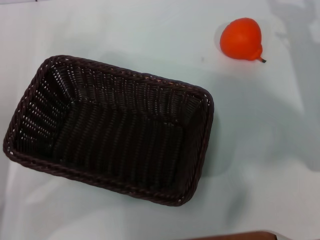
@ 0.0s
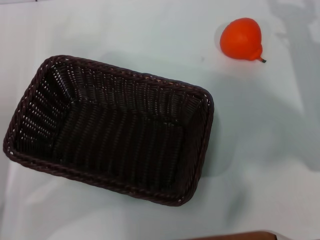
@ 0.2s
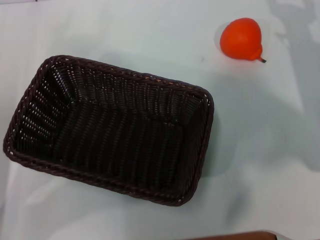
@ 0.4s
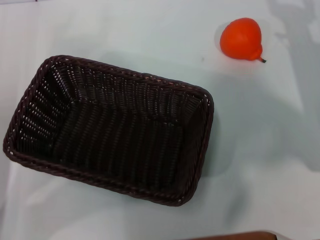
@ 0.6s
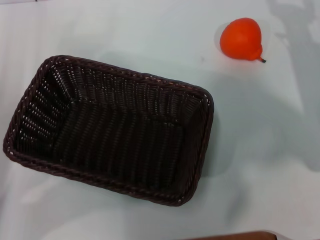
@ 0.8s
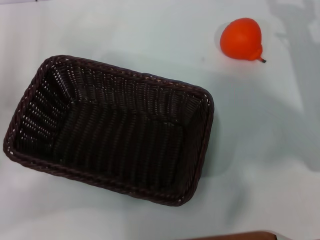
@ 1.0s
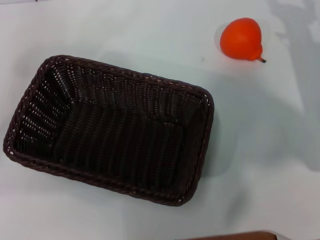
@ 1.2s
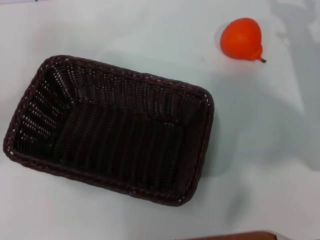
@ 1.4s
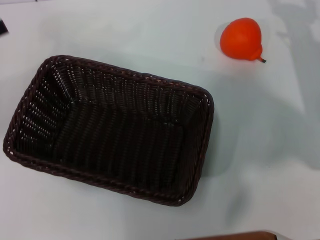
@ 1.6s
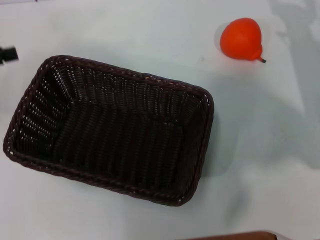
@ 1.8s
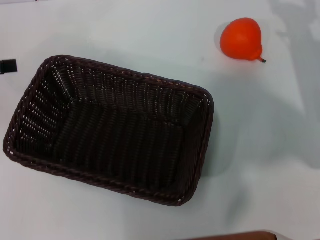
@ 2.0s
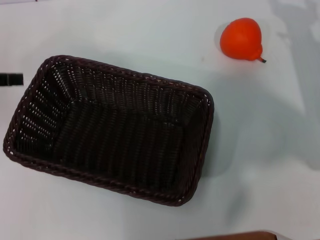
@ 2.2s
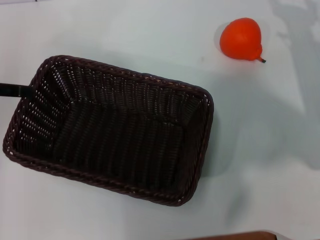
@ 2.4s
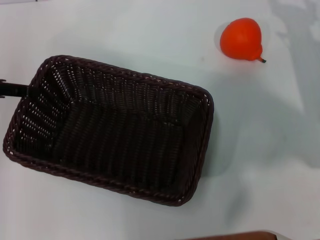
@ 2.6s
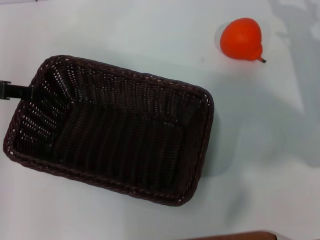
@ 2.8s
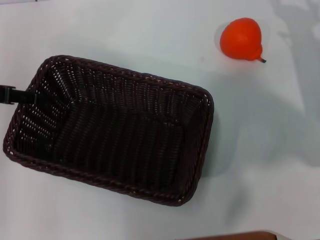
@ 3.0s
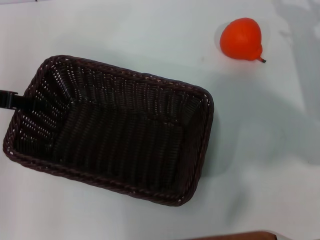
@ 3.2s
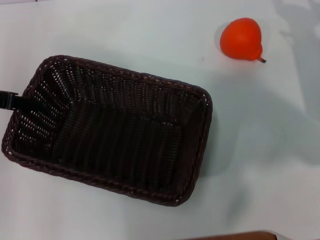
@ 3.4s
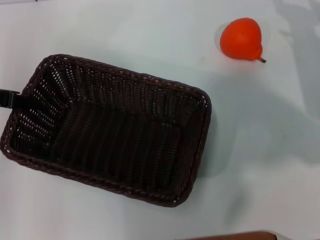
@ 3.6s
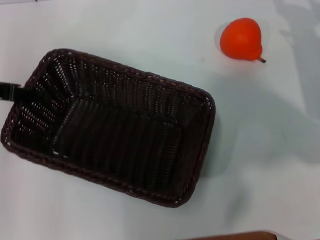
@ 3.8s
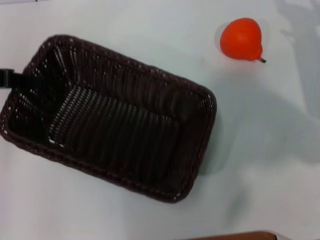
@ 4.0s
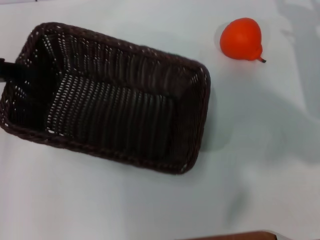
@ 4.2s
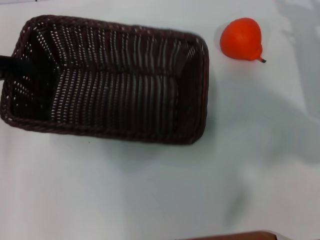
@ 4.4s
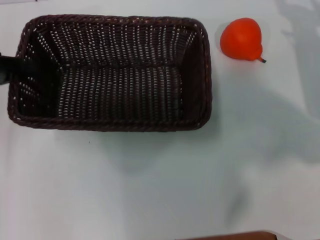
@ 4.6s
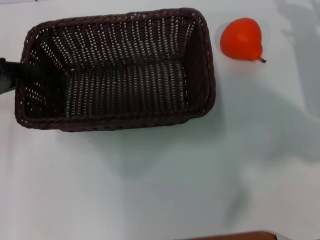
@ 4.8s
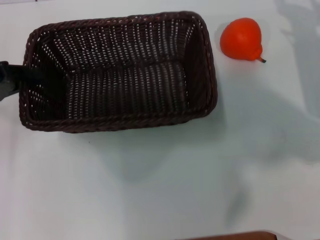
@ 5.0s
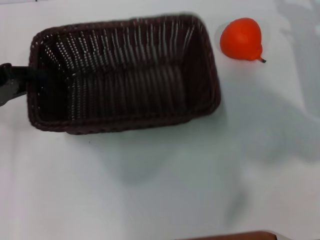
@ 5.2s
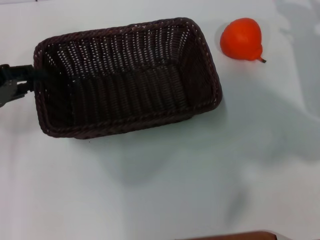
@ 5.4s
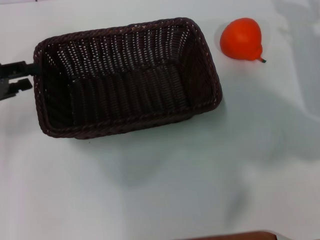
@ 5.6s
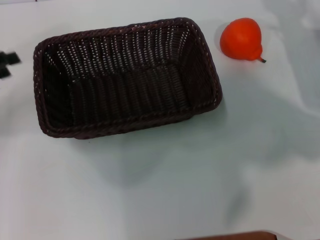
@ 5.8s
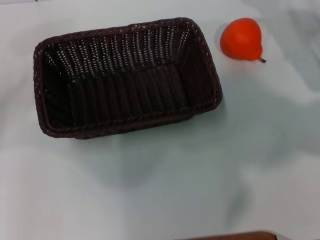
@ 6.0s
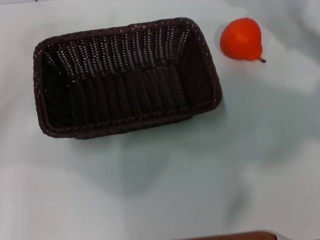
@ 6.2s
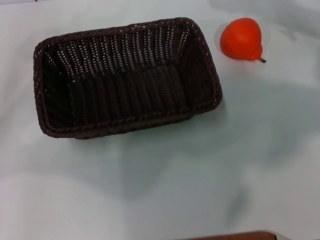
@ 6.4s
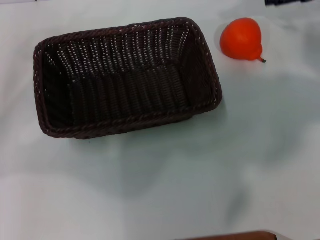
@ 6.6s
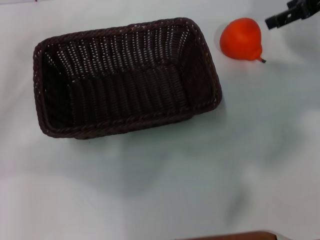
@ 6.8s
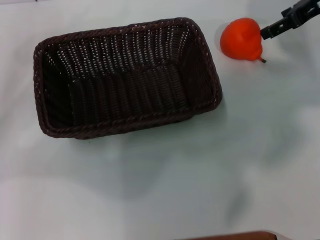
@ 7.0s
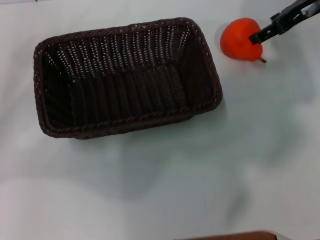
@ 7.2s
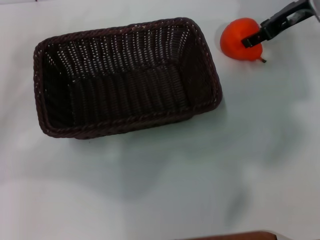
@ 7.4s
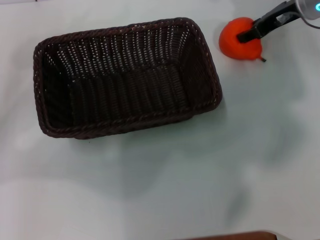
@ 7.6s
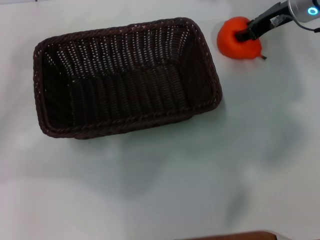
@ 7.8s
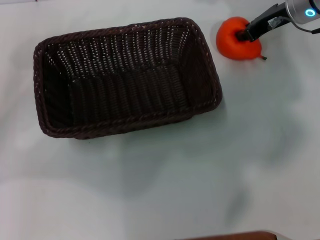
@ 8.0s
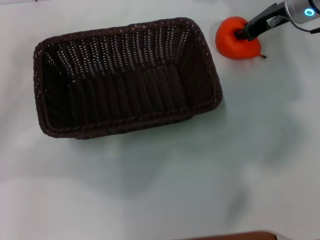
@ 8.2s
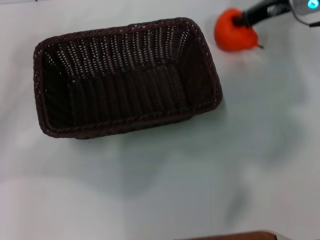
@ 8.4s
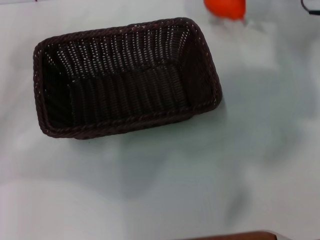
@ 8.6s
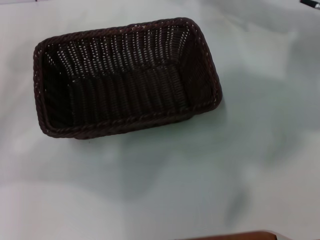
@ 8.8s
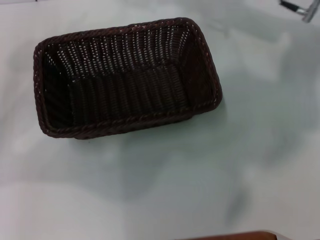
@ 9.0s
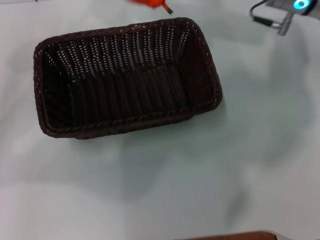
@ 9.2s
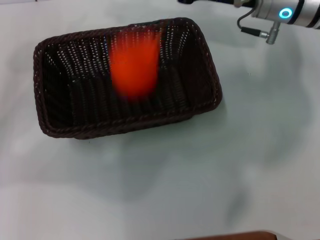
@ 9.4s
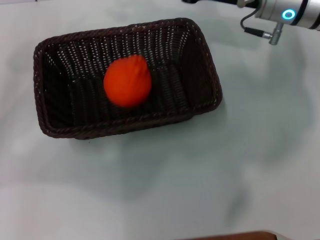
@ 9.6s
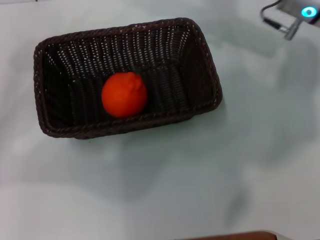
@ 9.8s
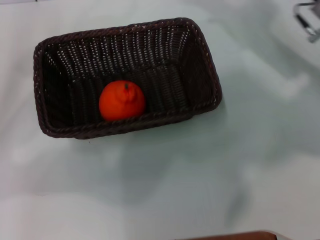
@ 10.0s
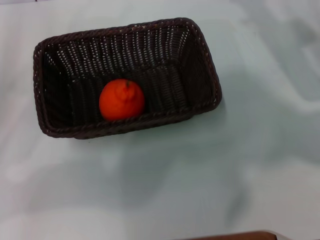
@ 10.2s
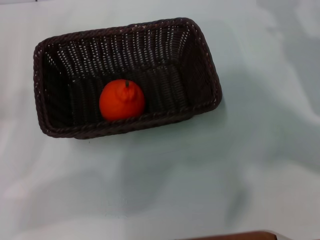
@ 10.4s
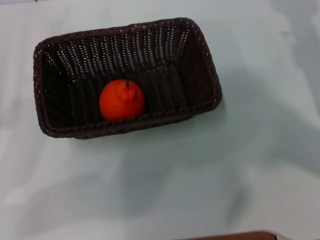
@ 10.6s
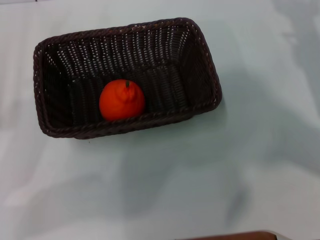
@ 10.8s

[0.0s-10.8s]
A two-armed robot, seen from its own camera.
Task of the whole recording: the left gripper pick up the black basket and place it horizontally in the middle of the table, the right gripper pick up the orange and place it into the black basket.
Step, 0.0s to 3.8s: Pick up the dark basket with the left gripper.
Step, 4.2s to 5.6s: Place the dark basket in the center of view with the left gripper.
Step, 5.8s to 8.4s: Pick up the orange with the right gripper.
Step, 8.6s to 9.4s: Place the orange into the dark basket with the right gripper.
0.0s to 1.6s: The left gripper shifts approximately 10 cm upward, to the left and forward.
1.6s to 3.0s: The left gripper goes some 5 cm to the right.
3.0s to 4.6s: The left gripper closes.
4.6s to 6.2s: The right gripper heads upward and forward, covering roughly 10 cm, while the left gripper opens.
6.2s to 7.8s: The right gripper travels to the left and forward by some 10 cm, and closes its fingers.
7.8s to 9.2s: The right gripper shifts some 10 cm backward and to the left, and closes its fingers.
9.2s to 10.8s: The left gripper travels backward by approximately 5 cm, while the right gripper travels to the right, downward and backward by approximately 20 cm, and opens.
